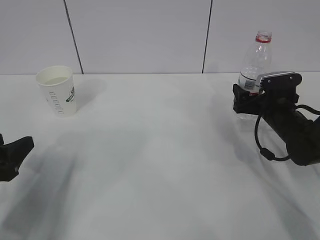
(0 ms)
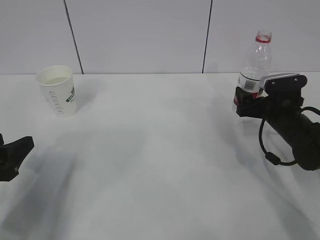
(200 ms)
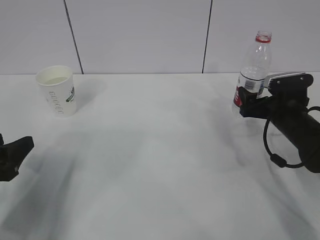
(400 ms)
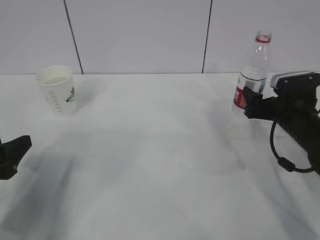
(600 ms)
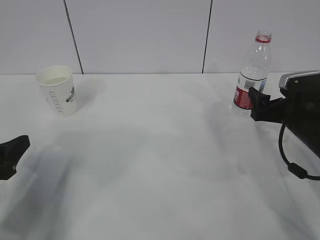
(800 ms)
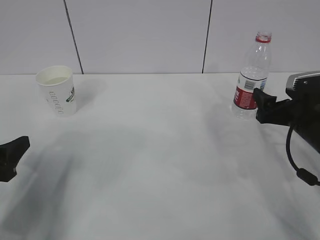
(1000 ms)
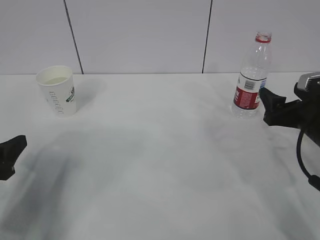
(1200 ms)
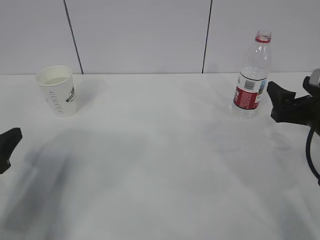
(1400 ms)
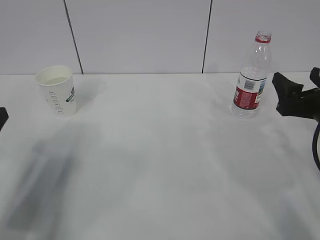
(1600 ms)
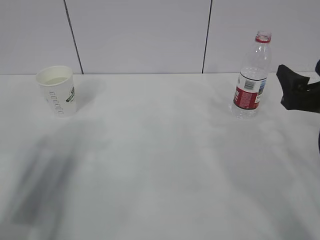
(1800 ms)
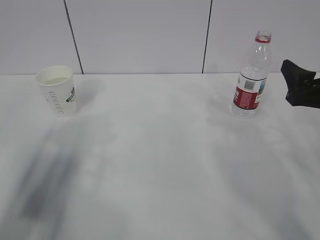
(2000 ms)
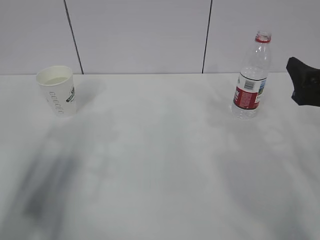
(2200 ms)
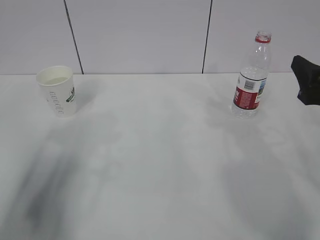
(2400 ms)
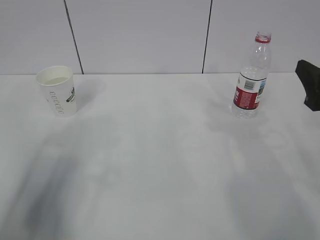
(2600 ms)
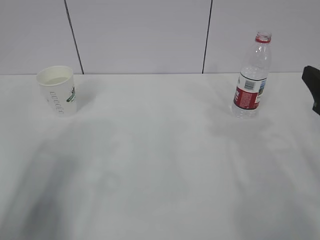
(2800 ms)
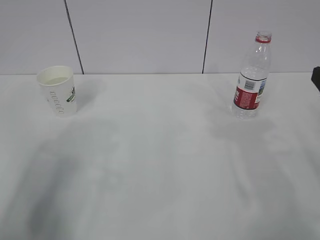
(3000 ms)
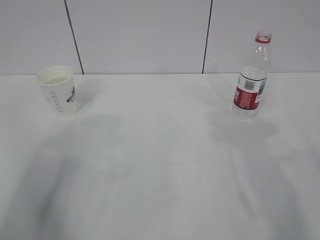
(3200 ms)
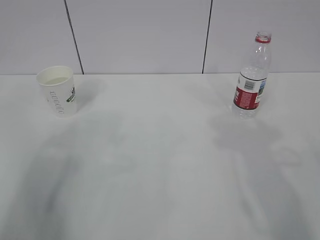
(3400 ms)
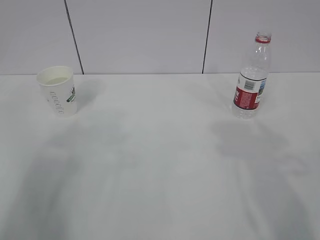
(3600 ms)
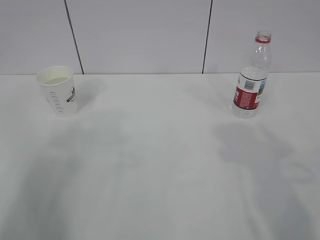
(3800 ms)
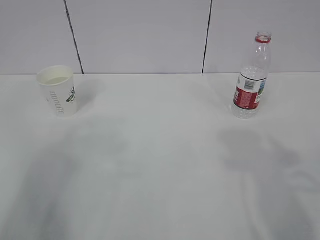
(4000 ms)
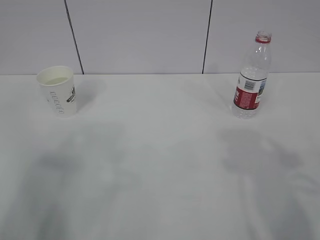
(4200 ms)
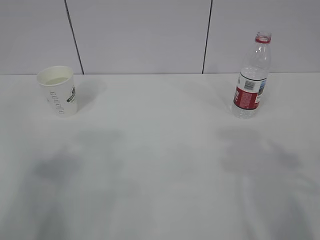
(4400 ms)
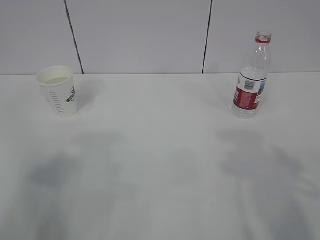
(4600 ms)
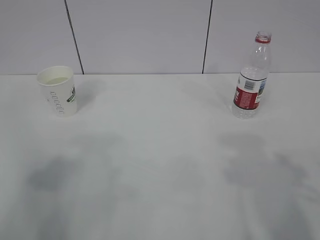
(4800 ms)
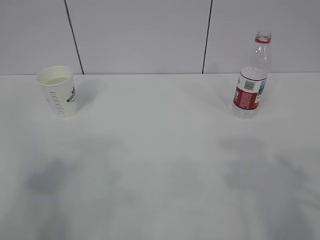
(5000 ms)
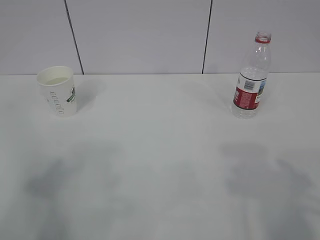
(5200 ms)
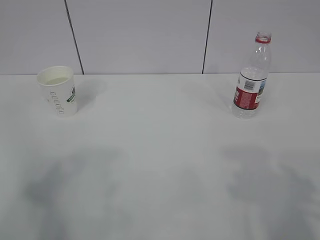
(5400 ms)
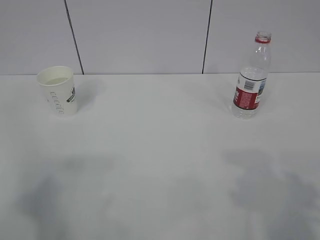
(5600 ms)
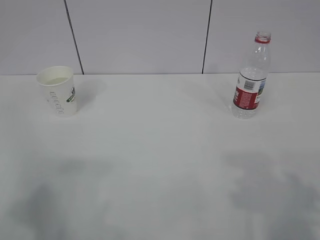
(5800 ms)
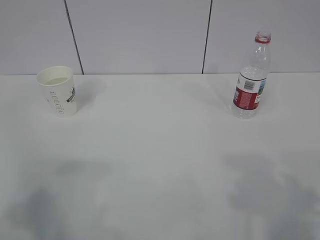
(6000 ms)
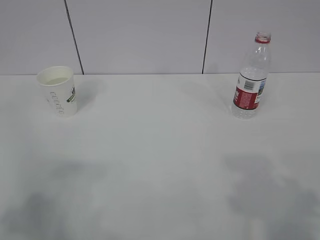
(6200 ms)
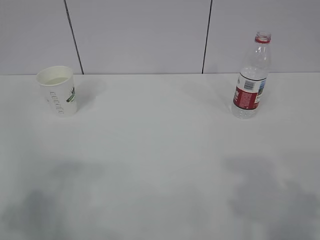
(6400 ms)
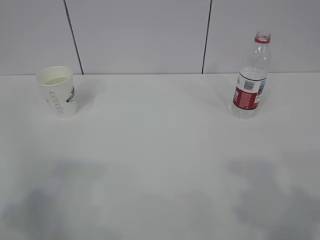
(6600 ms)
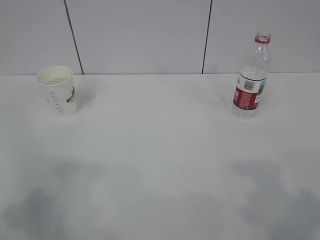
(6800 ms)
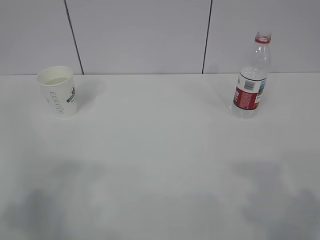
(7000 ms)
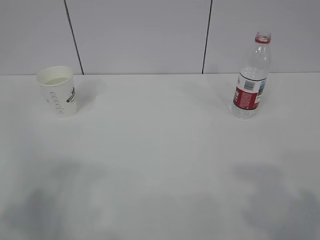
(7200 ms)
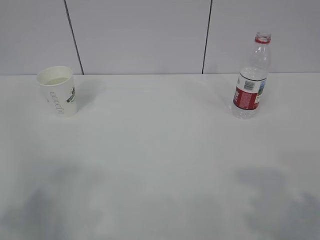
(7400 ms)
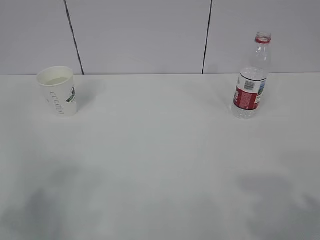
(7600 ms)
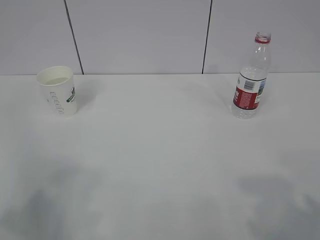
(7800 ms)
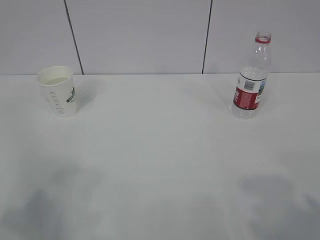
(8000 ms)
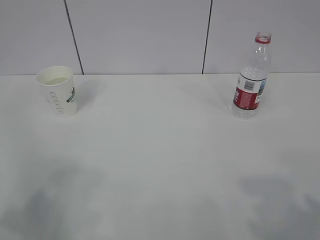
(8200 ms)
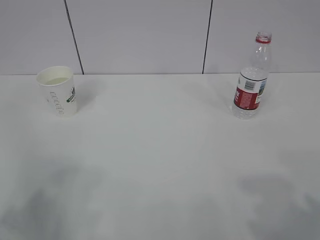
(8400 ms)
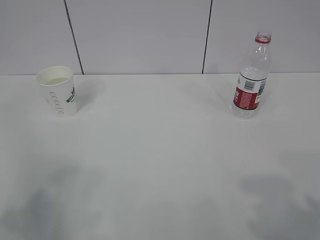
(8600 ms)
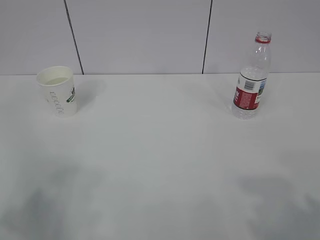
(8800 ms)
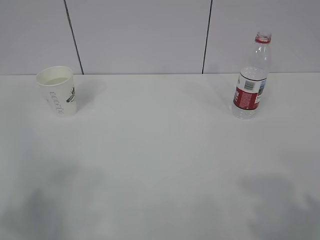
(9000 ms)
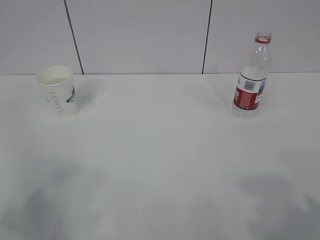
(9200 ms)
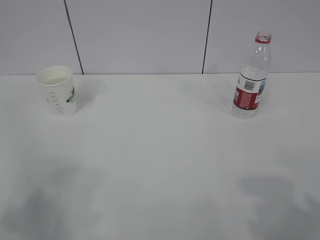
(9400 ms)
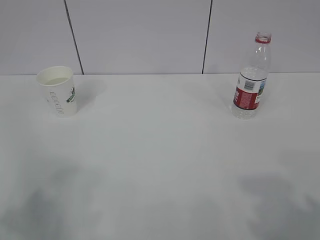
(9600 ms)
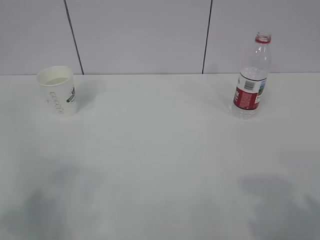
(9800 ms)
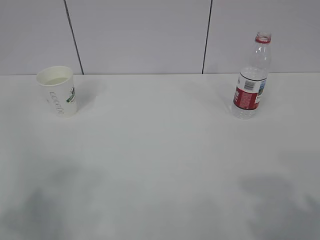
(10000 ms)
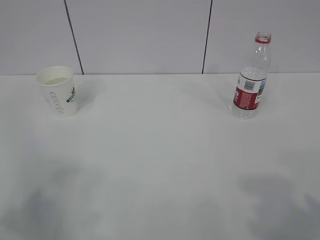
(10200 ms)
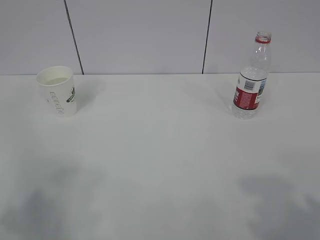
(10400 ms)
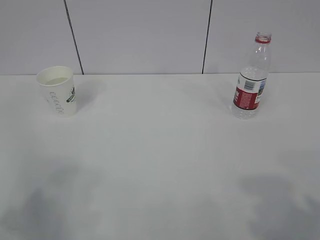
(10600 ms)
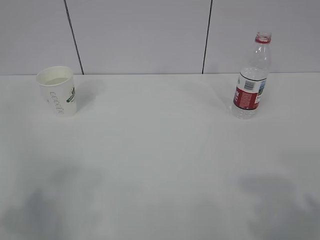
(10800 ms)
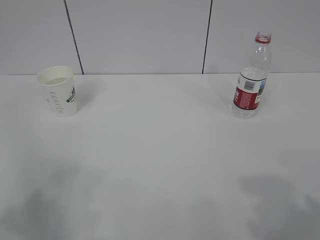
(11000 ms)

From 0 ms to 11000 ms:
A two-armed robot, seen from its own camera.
From 0 ms to 1600 ms: The right gripper heads backward and upward, covering some 15 cm.
From 1600 ms to 3200 ms: The right gripper travels backward and upward by approximately 15 cm; the left gripper heads upward and backward, covering some 15 cm.
From 7800 ms to 11000 ms: Neither gripper changes place.

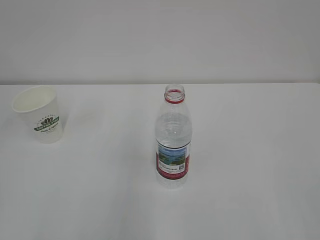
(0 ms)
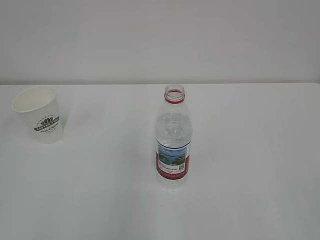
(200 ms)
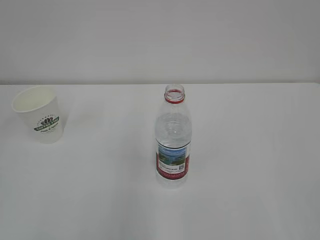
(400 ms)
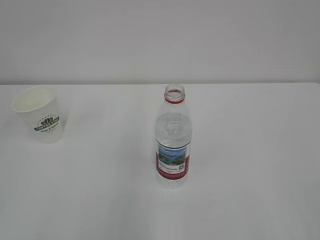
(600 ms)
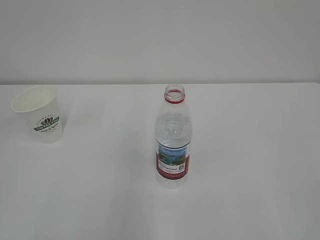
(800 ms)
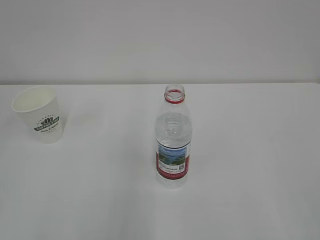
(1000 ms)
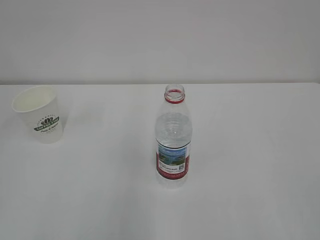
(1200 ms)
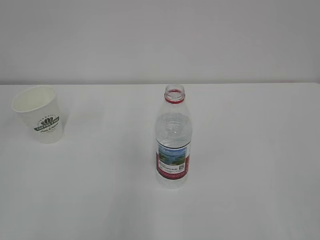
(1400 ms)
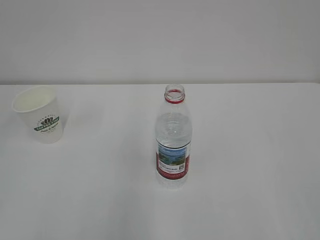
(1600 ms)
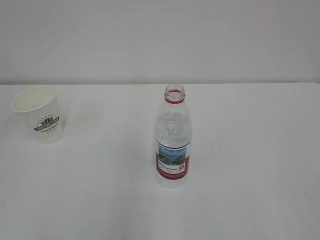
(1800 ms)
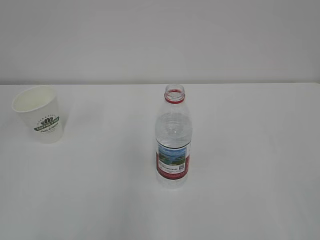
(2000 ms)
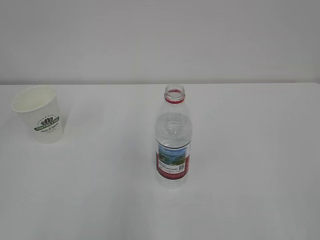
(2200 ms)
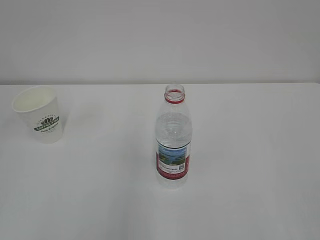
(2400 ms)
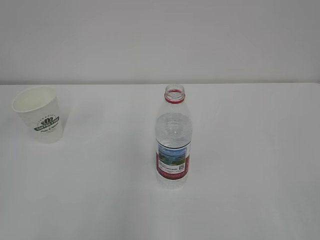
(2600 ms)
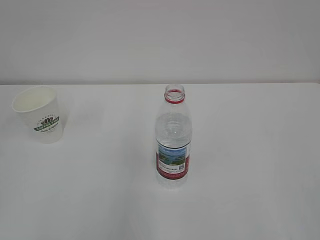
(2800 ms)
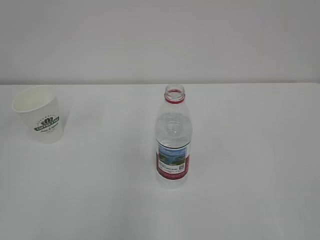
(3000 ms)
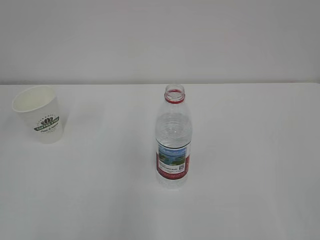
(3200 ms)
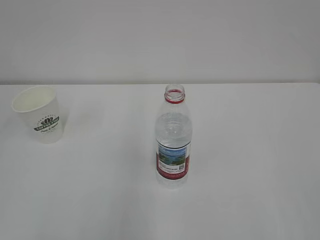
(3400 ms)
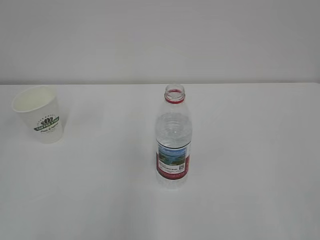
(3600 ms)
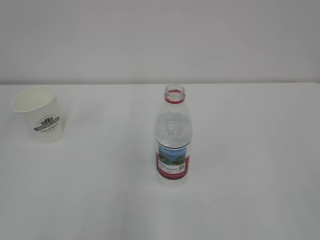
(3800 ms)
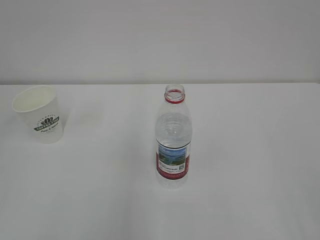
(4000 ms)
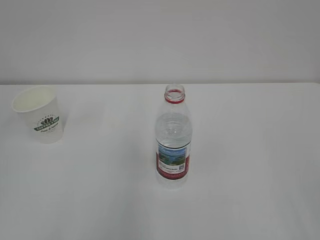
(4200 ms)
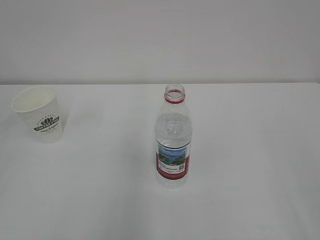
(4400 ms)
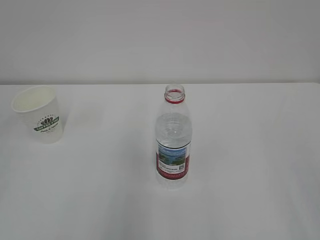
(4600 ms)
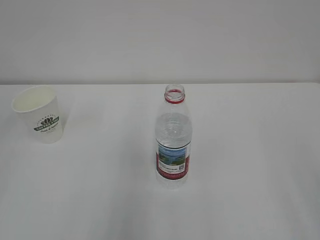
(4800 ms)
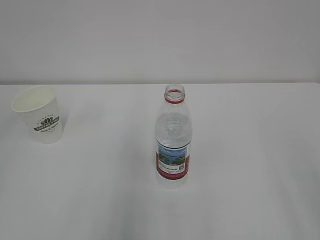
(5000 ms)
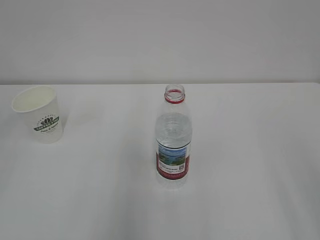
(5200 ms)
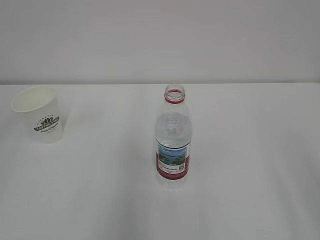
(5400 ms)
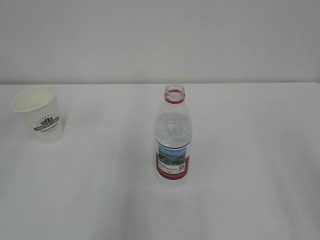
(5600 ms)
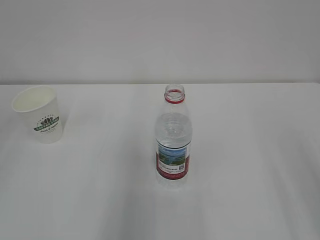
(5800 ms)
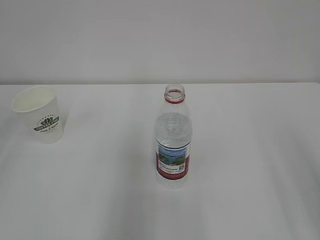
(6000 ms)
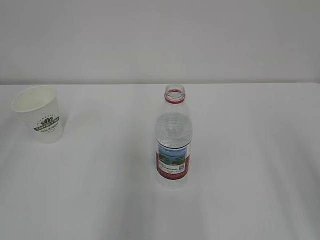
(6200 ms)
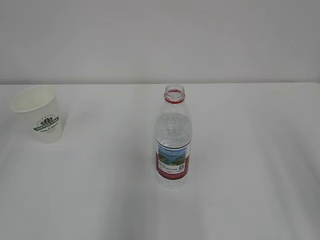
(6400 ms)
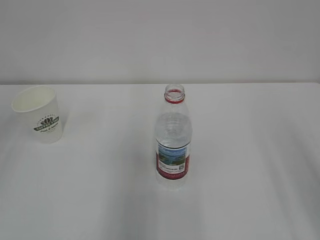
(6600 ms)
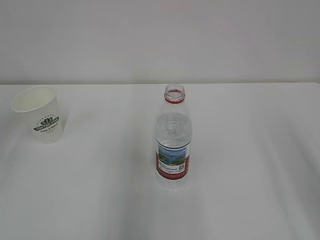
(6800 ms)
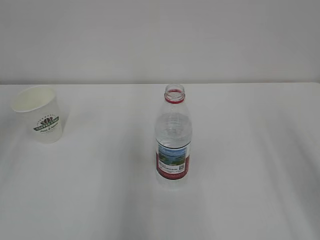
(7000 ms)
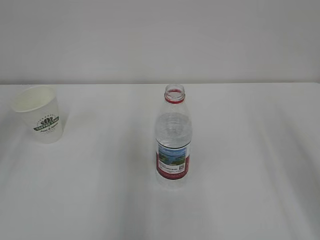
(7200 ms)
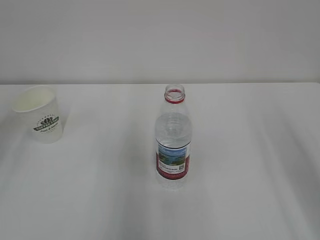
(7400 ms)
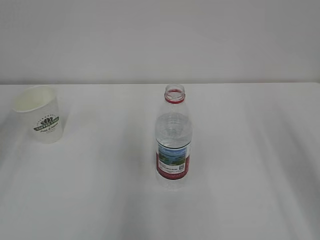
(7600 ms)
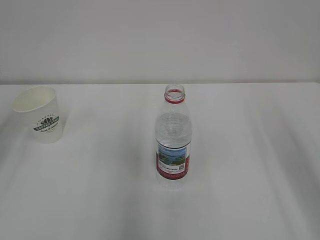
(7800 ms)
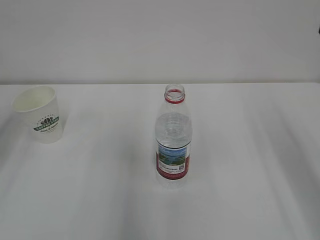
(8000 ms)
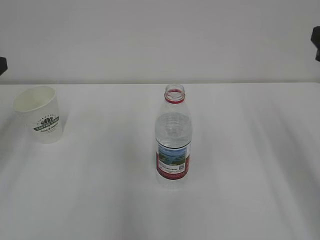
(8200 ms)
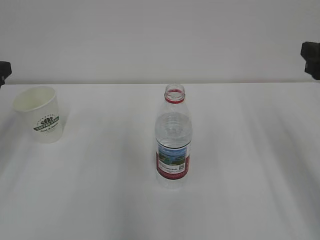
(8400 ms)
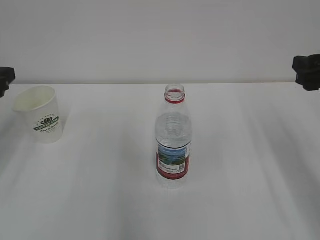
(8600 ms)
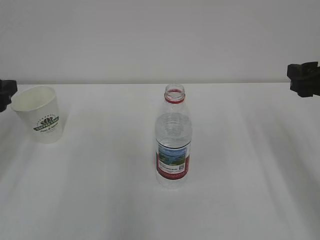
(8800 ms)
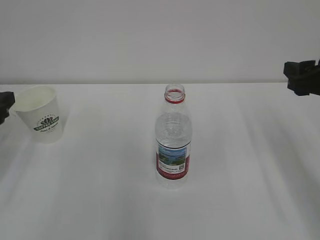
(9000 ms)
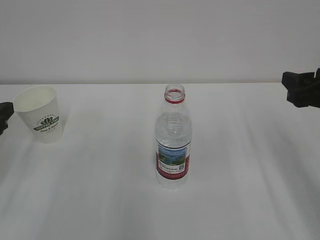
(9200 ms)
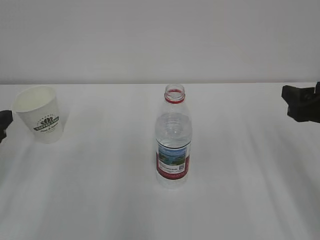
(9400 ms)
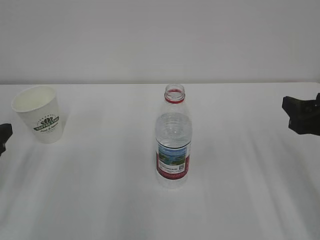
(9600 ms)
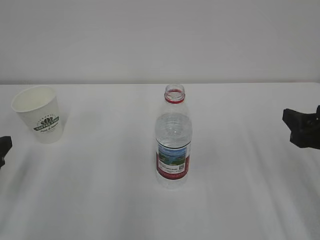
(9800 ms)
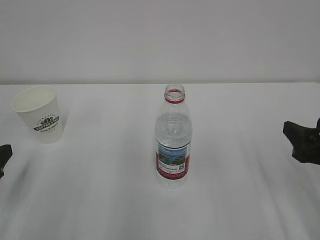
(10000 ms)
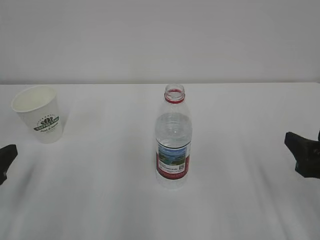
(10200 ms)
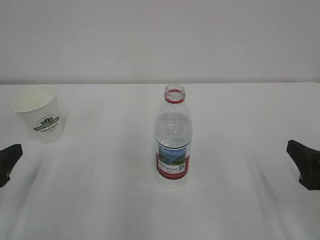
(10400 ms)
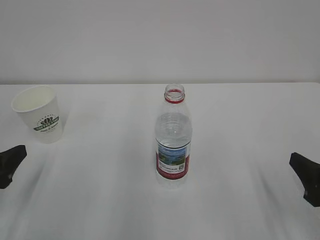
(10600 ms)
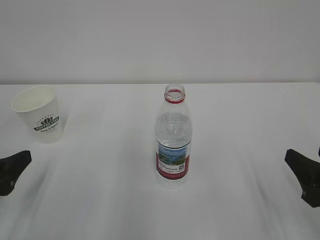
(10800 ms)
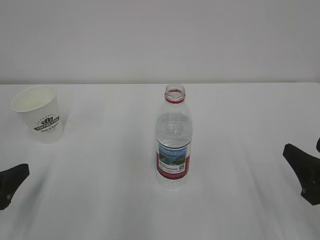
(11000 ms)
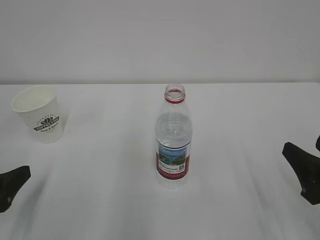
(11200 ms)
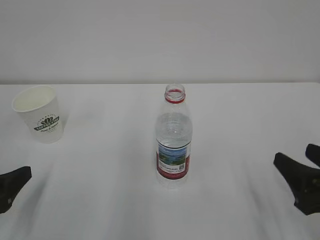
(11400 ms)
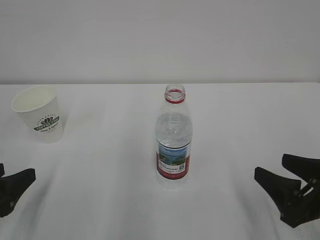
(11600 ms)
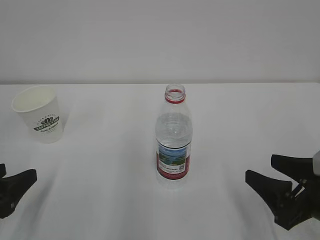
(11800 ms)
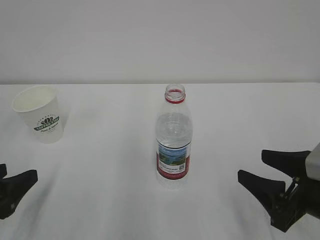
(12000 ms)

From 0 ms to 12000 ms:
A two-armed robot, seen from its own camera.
From 1600 ms to 3000 ms: The two grippers keep their place.
From 7600 ms to 9000 ms: The right gripper shifts some 10 cm downward and forward.
From 9000 ms to 10400 ms: The two grippers go approximately 10 cm backward and downward.
